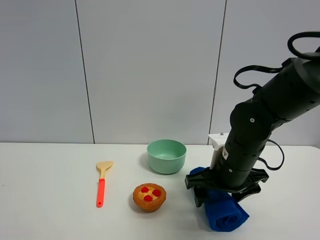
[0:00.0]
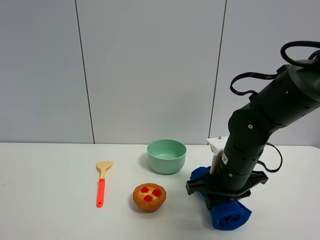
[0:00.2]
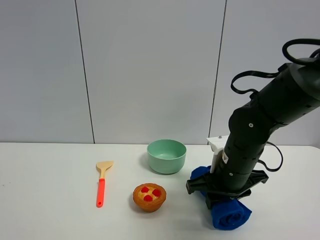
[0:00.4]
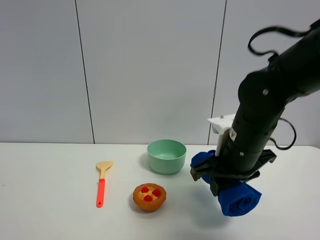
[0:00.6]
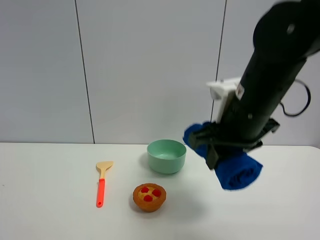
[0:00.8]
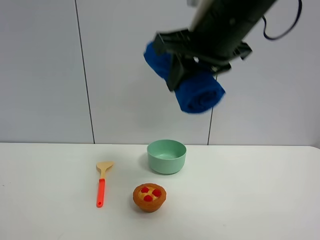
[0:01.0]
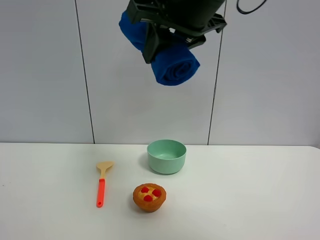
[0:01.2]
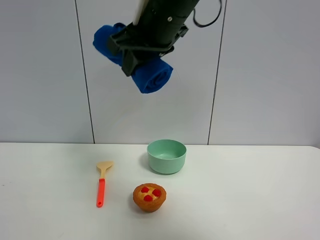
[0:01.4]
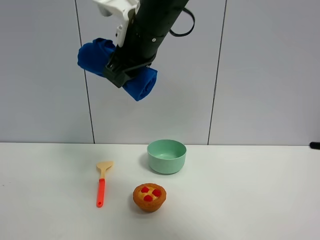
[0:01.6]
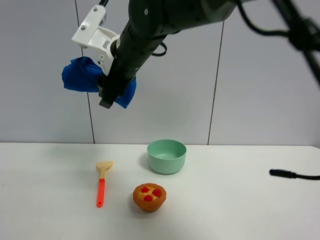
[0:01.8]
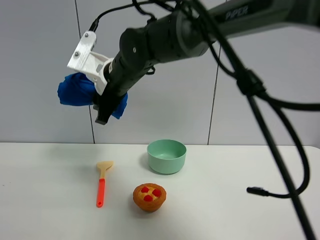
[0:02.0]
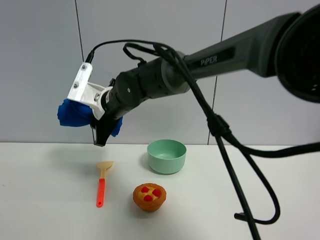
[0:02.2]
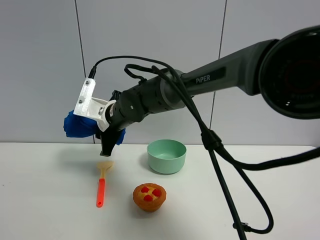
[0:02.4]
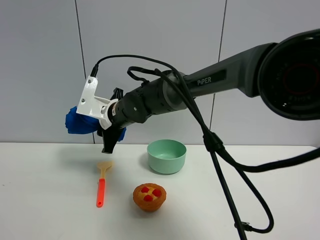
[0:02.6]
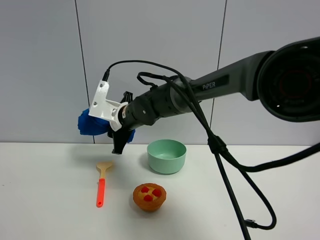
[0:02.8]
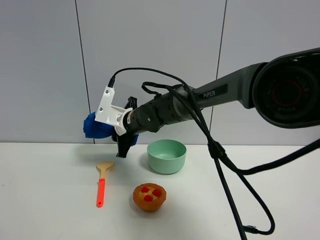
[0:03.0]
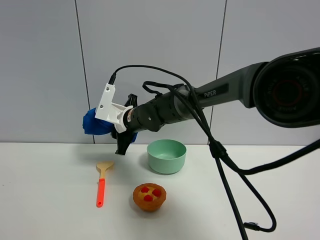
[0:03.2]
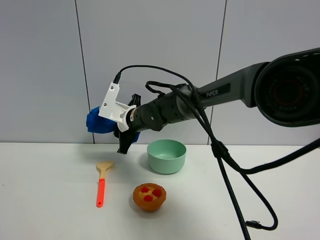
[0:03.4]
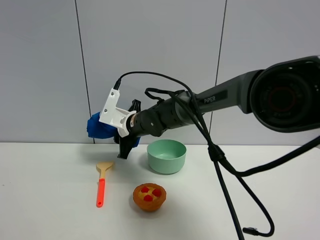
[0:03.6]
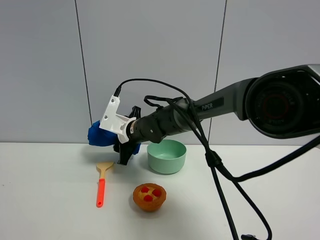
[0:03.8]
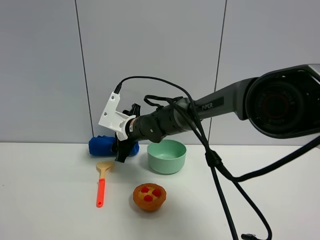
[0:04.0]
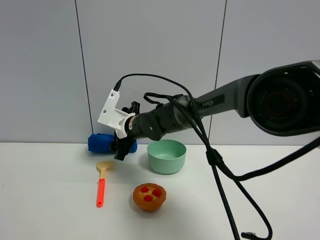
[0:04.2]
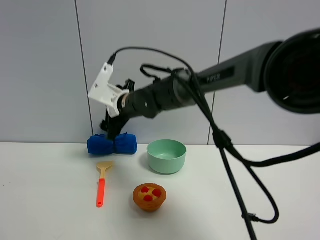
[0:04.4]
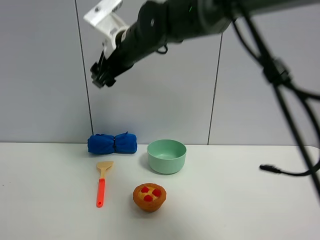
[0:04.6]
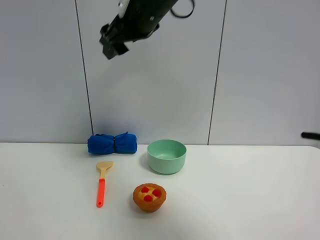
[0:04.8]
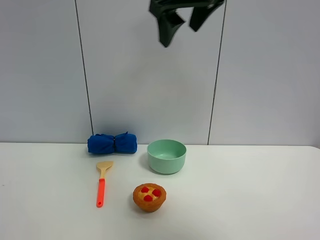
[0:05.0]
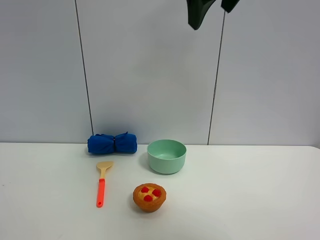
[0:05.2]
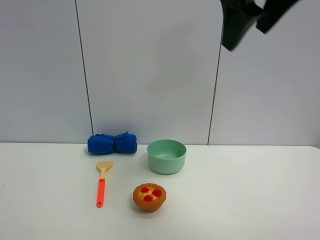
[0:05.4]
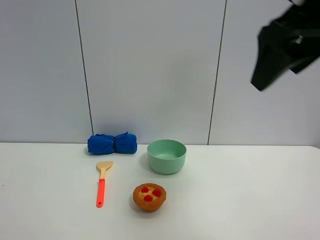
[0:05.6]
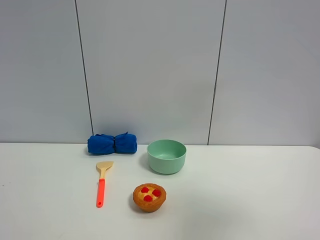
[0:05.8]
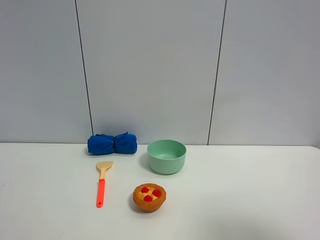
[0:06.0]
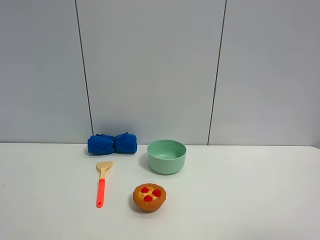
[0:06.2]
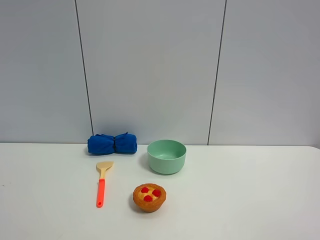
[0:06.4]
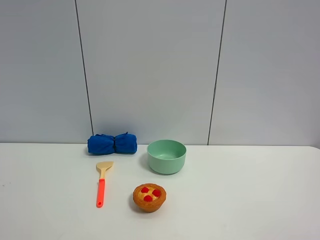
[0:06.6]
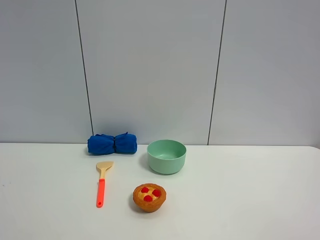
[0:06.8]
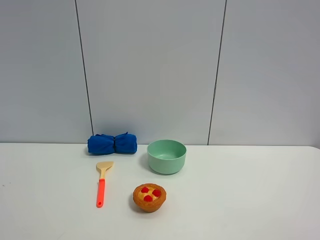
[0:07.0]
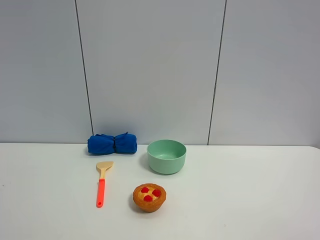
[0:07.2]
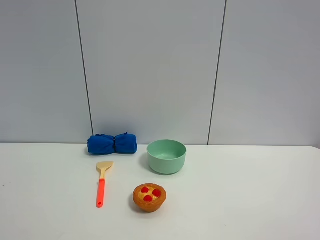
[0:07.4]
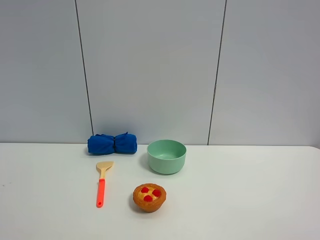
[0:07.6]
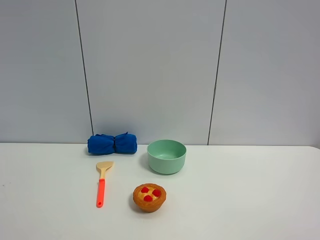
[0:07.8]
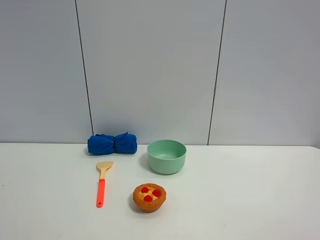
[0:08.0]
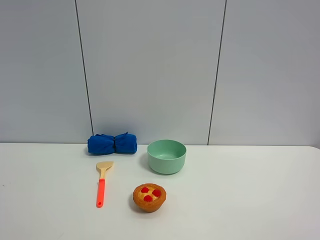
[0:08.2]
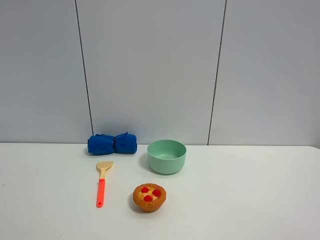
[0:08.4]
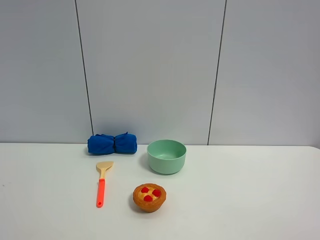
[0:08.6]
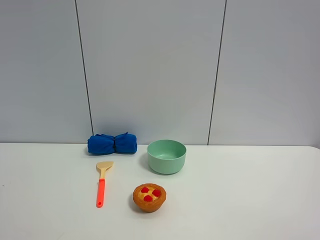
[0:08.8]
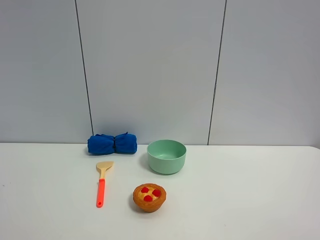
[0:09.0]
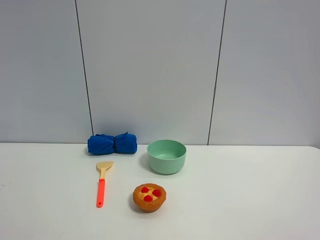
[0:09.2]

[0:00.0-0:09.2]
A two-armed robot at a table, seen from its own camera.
Task of the whole recording: the gripper move the object.
Step, 0:00.4 to 0:04.0: Place the blue towel on the table with the right gripper.
0:00.0 to 0:01.6: The right gripper heads upward and to the left, covering some 25 cm, and closes up.
0:01.6 to 0:03.0: The right gripper is displaced downward and forward by roughly 20 cm.
0:03.0 to 0:04.6: The right gripper travels upward by some 20 cm, and opens.
0:04.6 to 0:06.2: The right gripper moves backward and to the right, approximately 50 cm.
0:07.6 to 0:09.2: Neither gripper changes place.

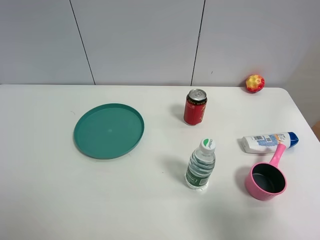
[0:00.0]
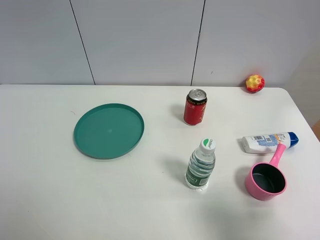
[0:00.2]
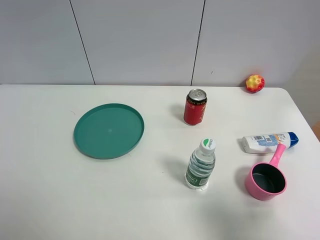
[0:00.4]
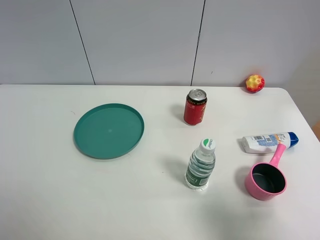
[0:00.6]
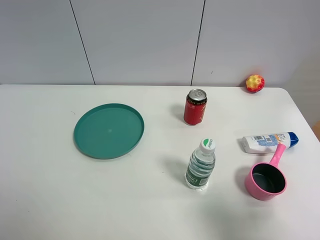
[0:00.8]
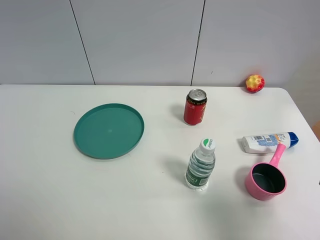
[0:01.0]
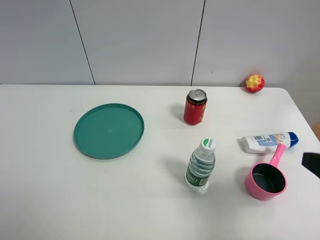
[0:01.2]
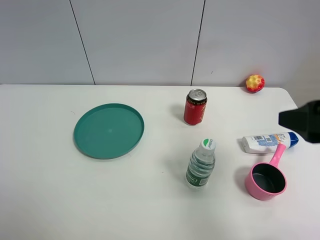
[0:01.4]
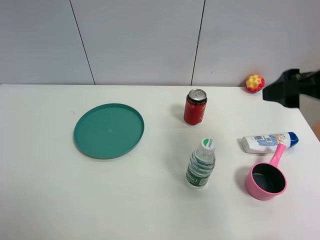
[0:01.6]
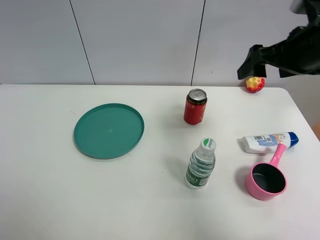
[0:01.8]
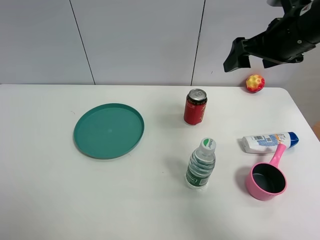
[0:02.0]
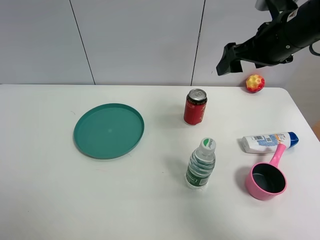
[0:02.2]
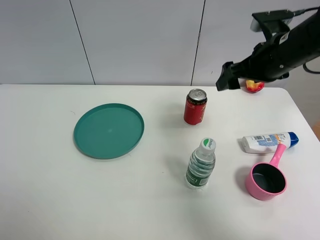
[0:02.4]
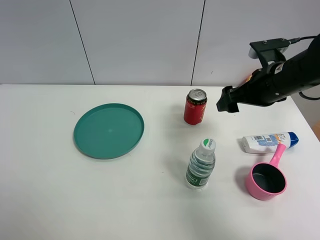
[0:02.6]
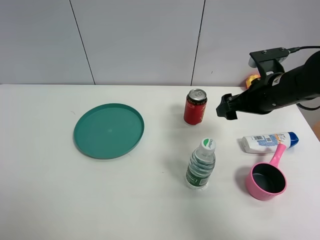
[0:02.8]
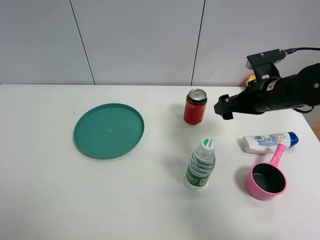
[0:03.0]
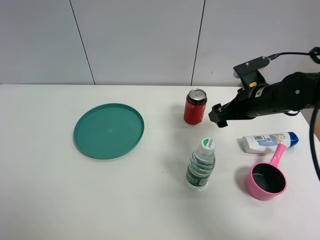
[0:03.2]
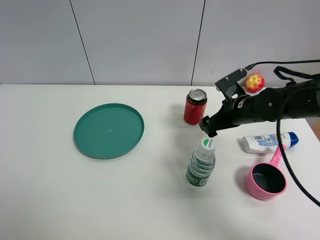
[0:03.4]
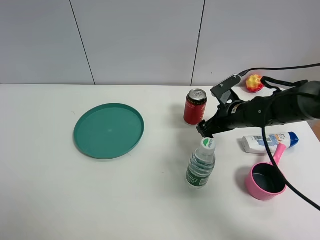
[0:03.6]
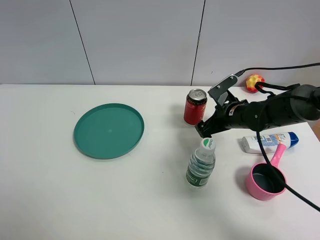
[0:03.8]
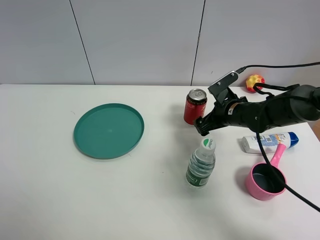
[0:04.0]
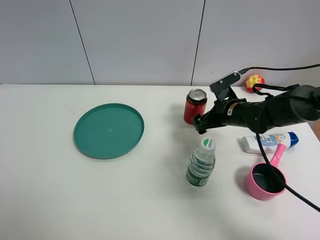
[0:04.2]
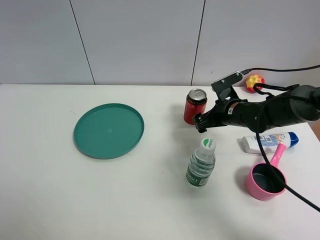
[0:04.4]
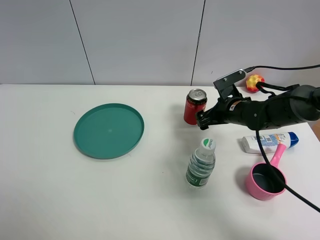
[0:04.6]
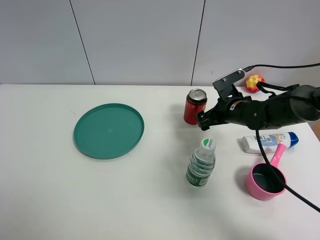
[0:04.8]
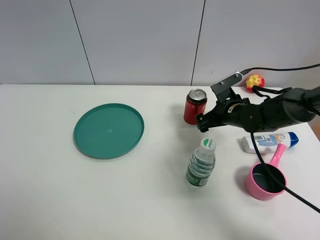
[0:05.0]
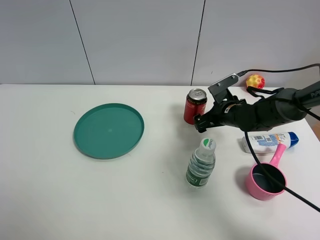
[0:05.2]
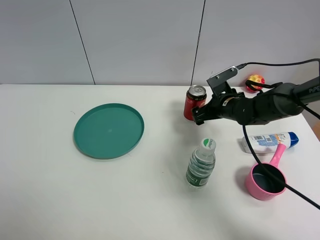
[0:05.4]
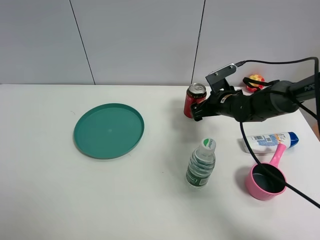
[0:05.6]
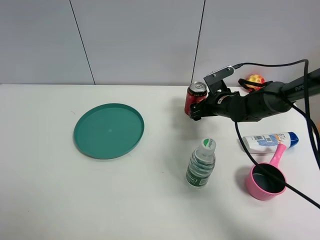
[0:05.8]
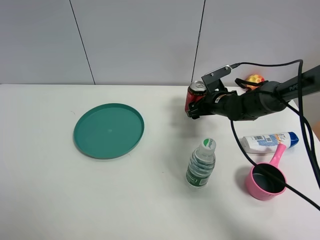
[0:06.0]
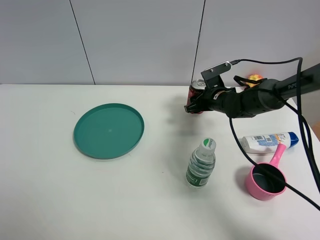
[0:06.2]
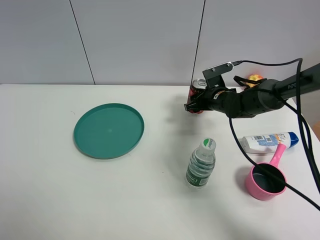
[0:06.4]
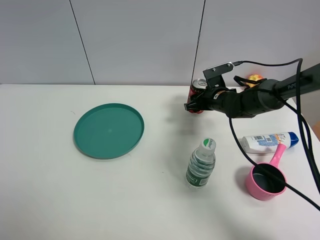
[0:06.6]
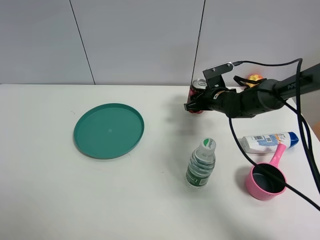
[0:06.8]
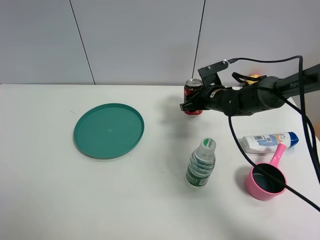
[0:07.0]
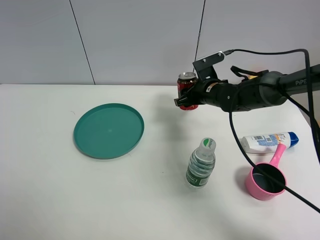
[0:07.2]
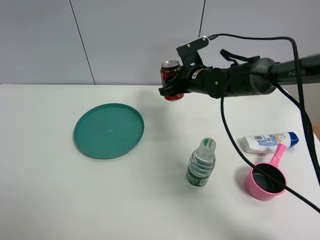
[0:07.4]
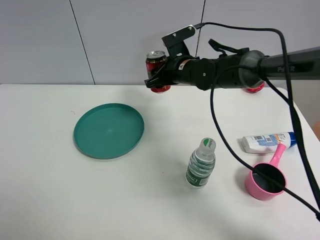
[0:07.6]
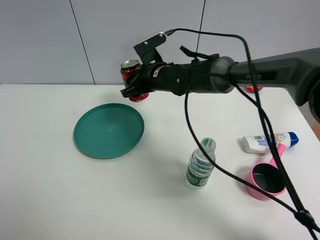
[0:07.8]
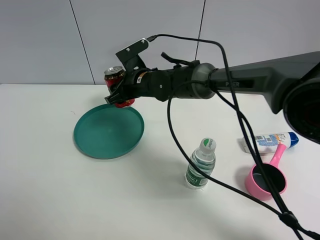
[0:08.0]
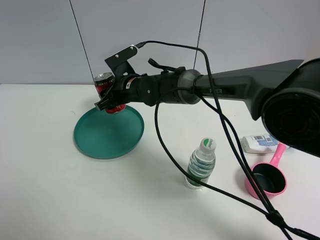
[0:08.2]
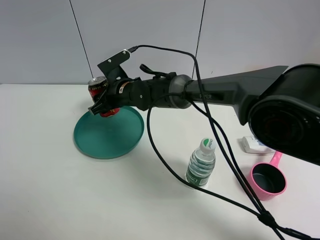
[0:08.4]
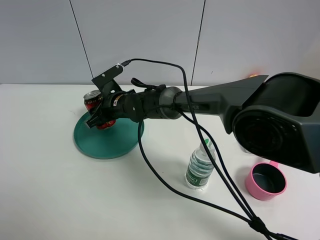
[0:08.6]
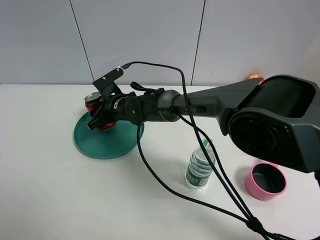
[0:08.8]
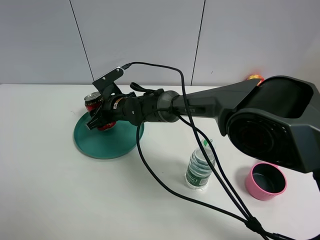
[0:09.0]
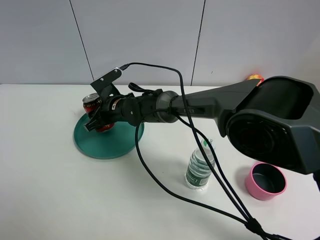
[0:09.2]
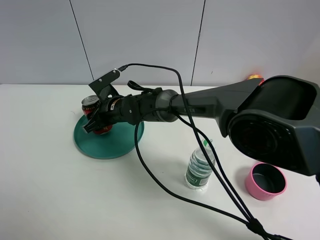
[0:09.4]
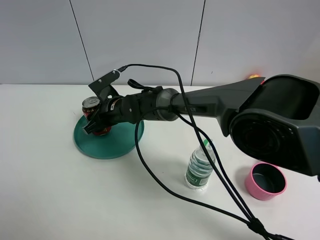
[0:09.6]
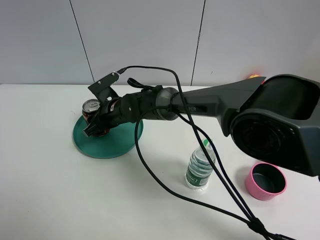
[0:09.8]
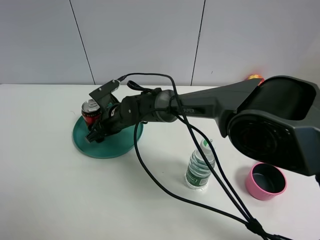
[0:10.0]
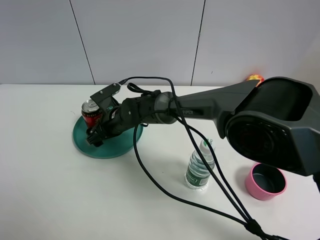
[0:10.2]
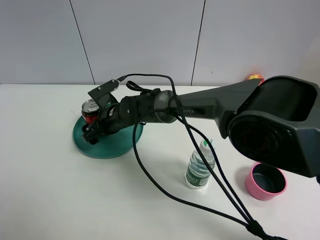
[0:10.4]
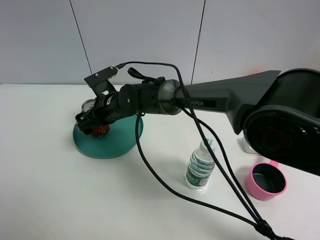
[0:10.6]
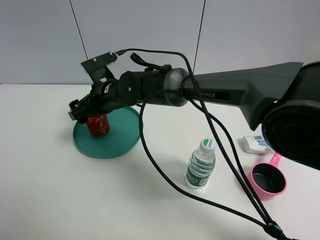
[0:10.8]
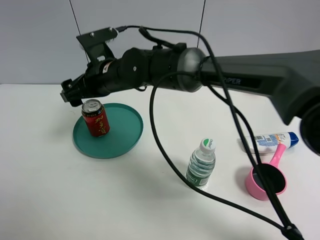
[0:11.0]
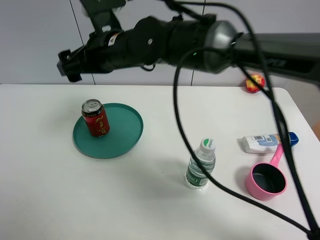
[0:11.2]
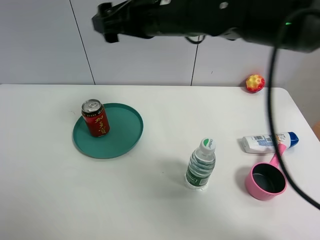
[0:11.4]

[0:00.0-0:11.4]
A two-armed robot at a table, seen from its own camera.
Task of the whole recording: the gripper move the object.
Step, 0:00.0 to 0:06.4: Grasp the Jia Duo Bao with the right gripper.
Step, 0:06.6 to 0:10.0: Place the Jia Duo Bao into the green plate with the right gripper.
0:00.0 to 0:01.4: The right gripper is displaced forward and upward by approximately 15 cm.
0:01.4 to 0:02.8: The right gripper shifts roughly 15 cm forward and downward.
0:02.8 to 0:04.2: The right gripper travels downward and forward by approximately 10 cm.
0:04.2 to 0:05.6: The grippers make only small movements.
0:05.6 to 0:07.2: The right gripper moves some 5 cm, and closes its fingers.
0:07.2 to 0:08.6: The right gripper heads to the left, covering roughly 20 cm.
0:08.6 to 0:10.0: The grippers move only a little.
0:10.0 to 0:11.4: The right gripper shifts roughly 30 cm upward and to the right, and opens up.

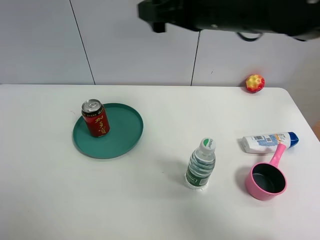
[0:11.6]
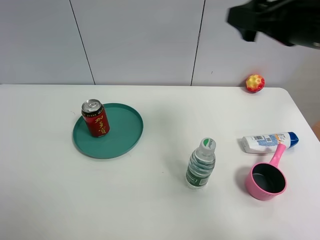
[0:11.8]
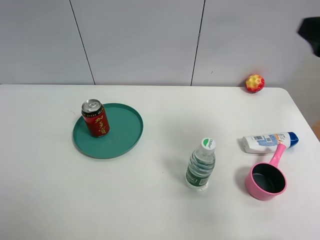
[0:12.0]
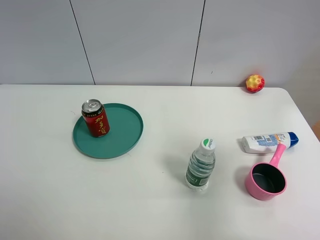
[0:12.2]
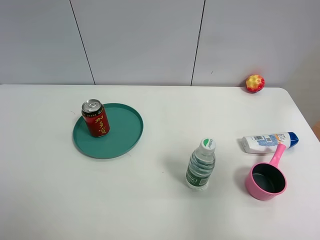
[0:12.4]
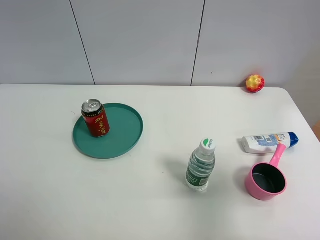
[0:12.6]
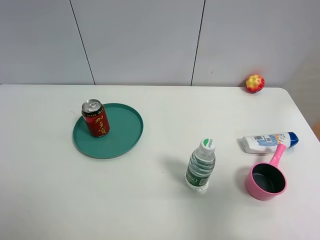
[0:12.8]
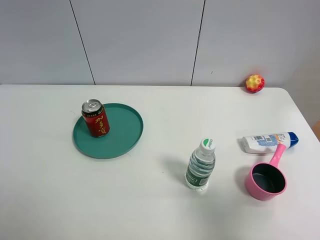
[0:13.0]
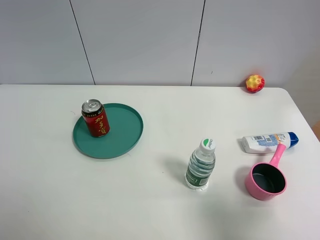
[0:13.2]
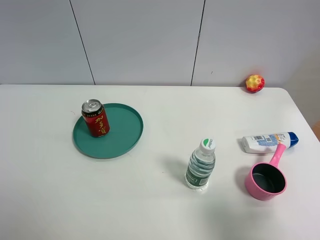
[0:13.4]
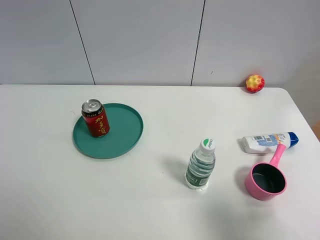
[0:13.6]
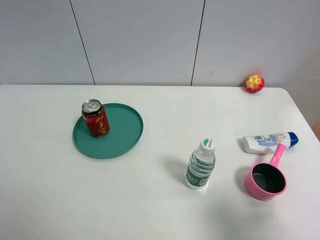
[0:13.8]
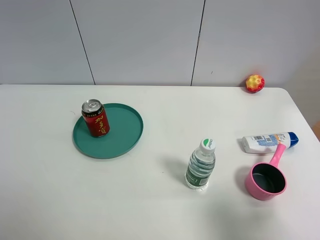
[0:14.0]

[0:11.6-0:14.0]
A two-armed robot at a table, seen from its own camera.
Task of the whole recording: the gripper move the object.
0:11.6 to 0:12.8: The right gripper travels backward and to the right by some 30 cm.
0:12.8 to 0:14.0: The right gripper moves downward, approximately 5 cm.
